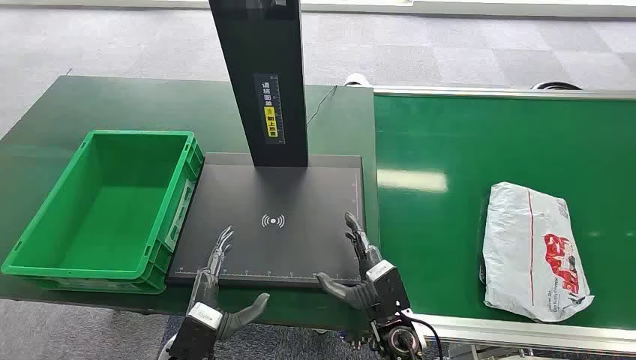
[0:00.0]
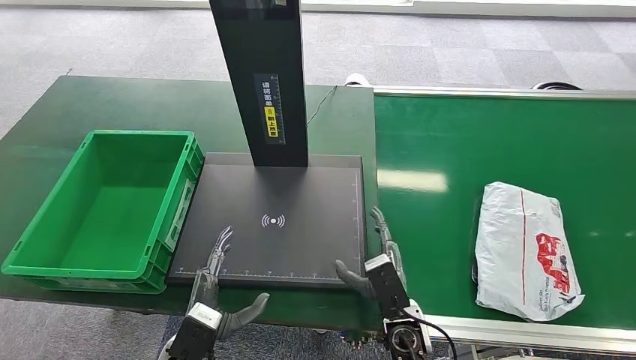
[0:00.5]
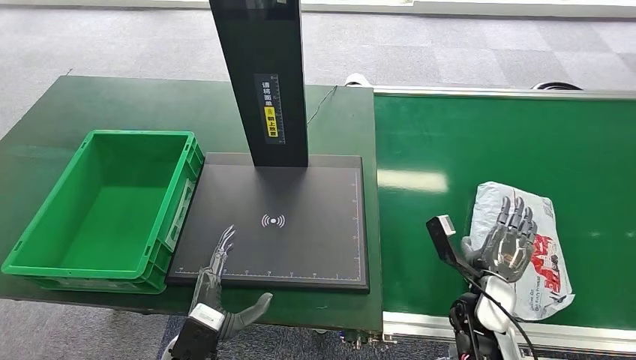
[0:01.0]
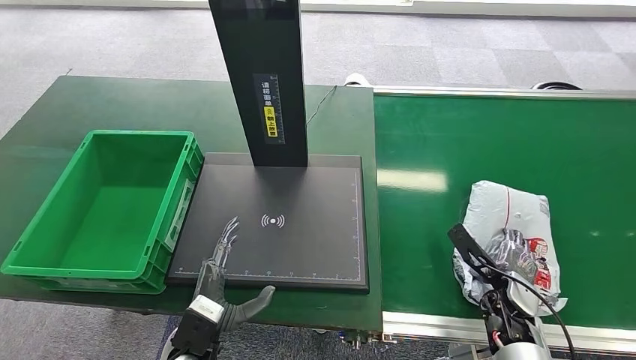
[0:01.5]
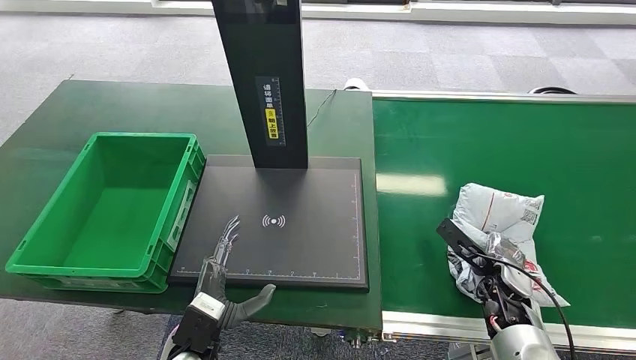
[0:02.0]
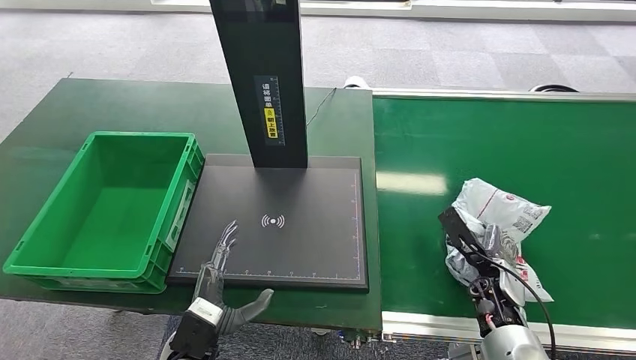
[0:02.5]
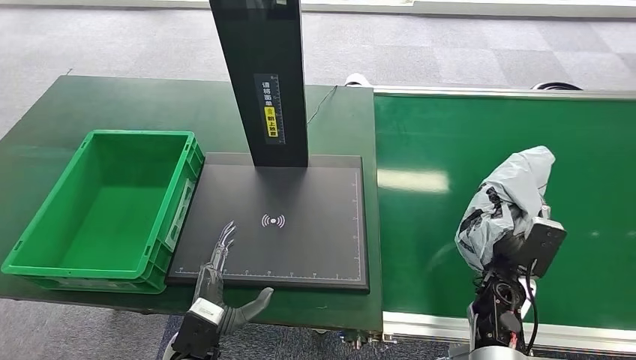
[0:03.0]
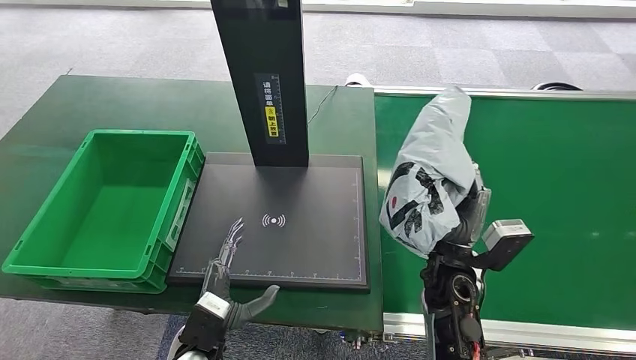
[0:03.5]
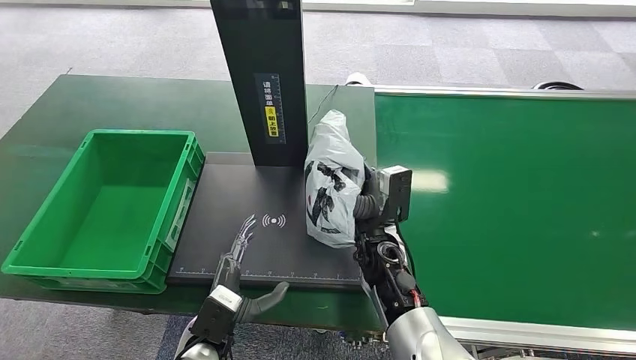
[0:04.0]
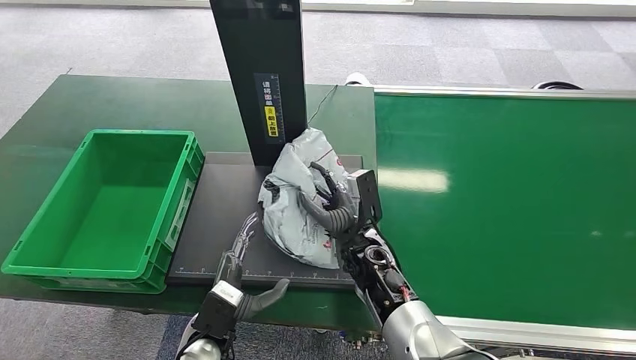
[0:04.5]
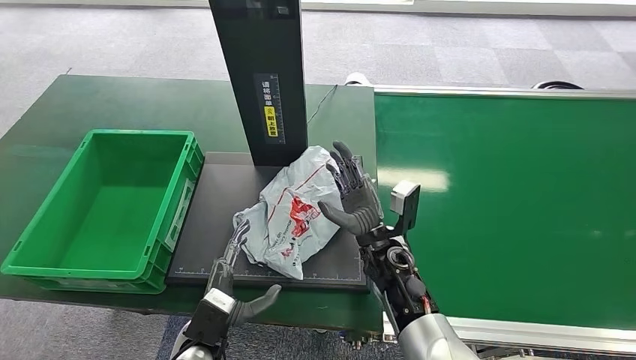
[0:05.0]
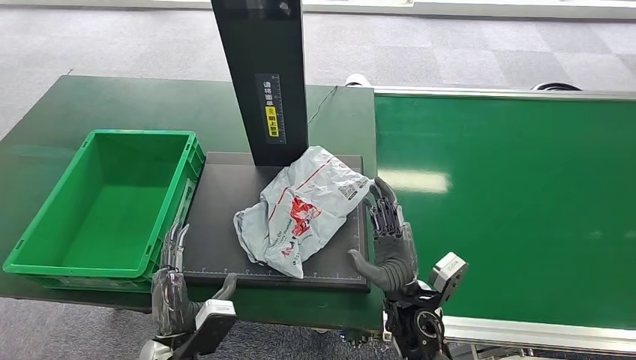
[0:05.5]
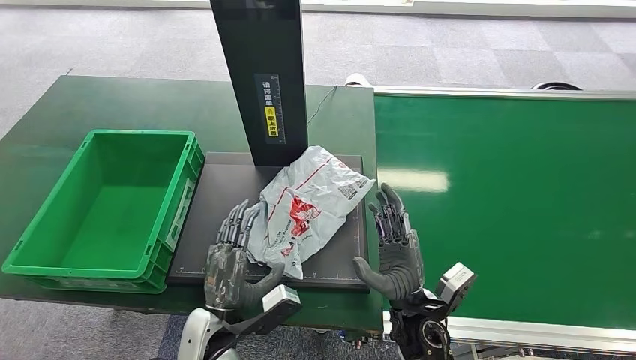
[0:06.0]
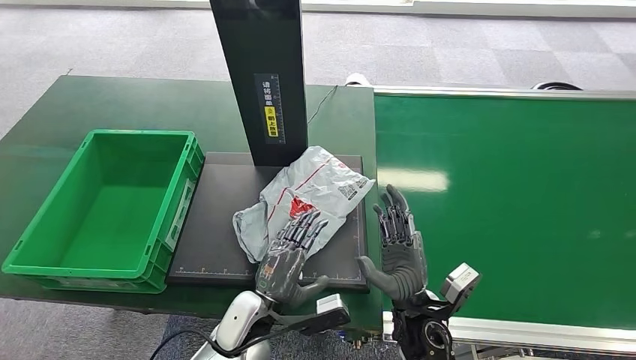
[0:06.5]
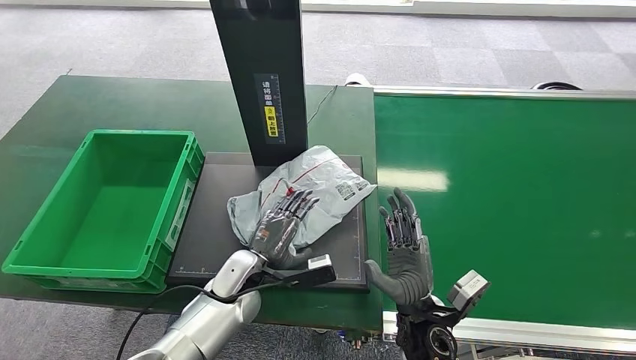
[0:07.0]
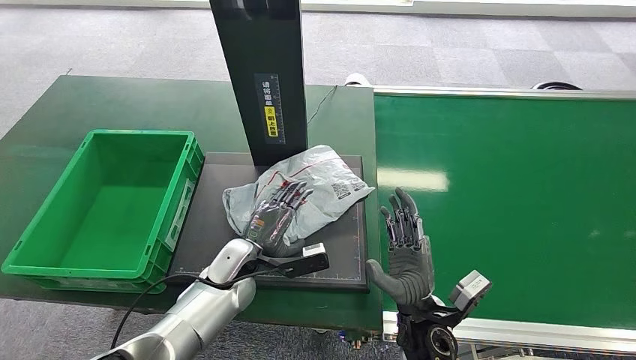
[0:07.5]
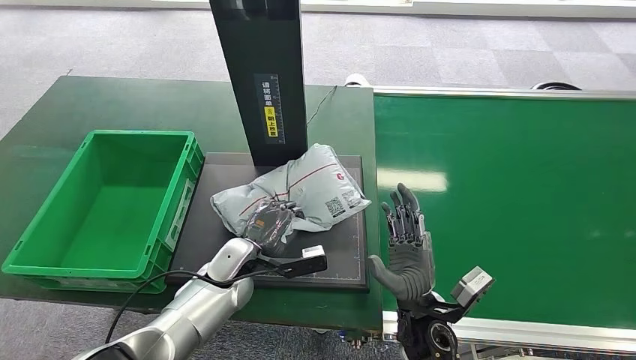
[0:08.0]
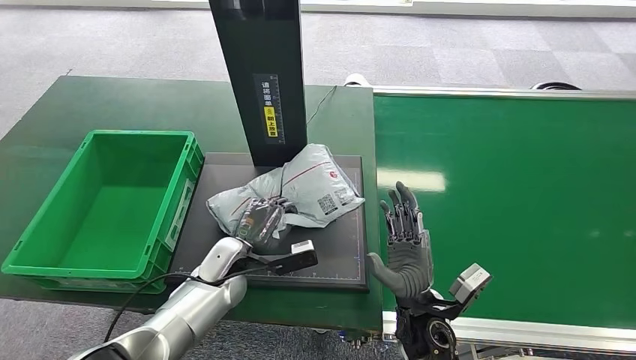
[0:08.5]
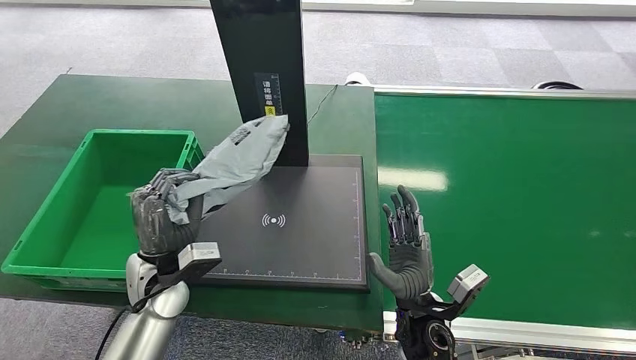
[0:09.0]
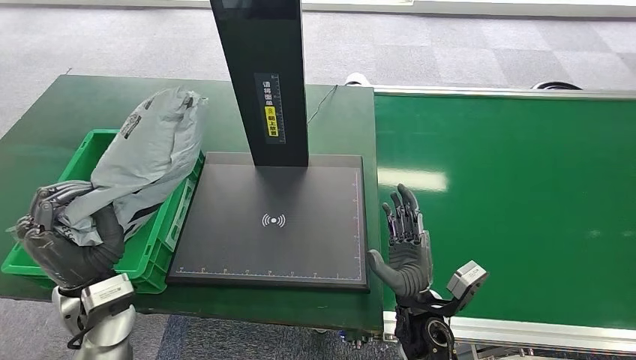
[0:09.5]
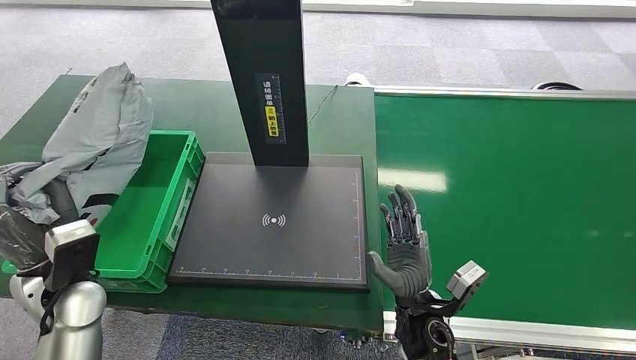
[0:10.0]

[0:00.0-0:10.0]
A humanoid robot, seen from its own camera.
Step, 0:00.0 to 0:03.0: Pick up the package from the conveyor belt.
Step, 0:03.5 to 0:05.5: Place the package onto the inbound machine.
Step, 0:06.0 to 0:09.0: Pick up the package from the inbound machine.
0:04.0 to 0:06.0: The right hand heads backward, covering some 10 cm.
0:06.0 to 0:08.0: The left hand shifts approximately 15 cm forward.
0:08.0 to 0:10.0: The left hand travels to the left, upward and backward by roughly 25 cm.

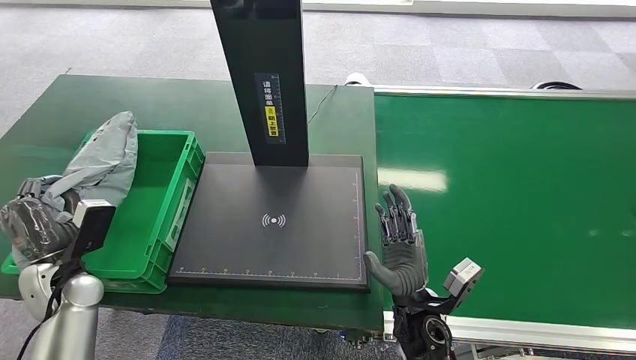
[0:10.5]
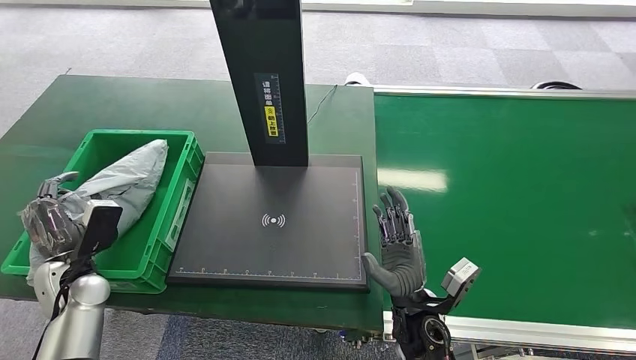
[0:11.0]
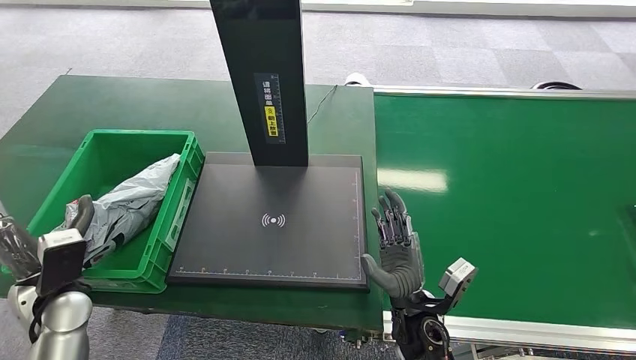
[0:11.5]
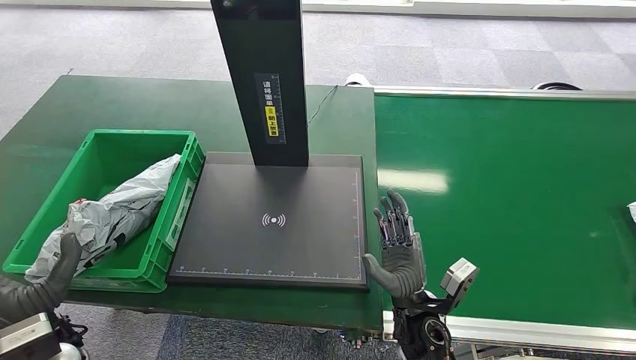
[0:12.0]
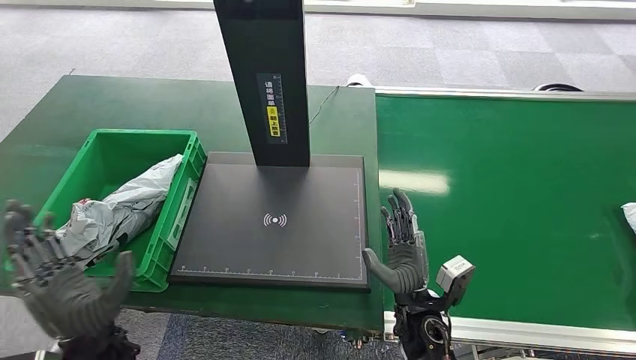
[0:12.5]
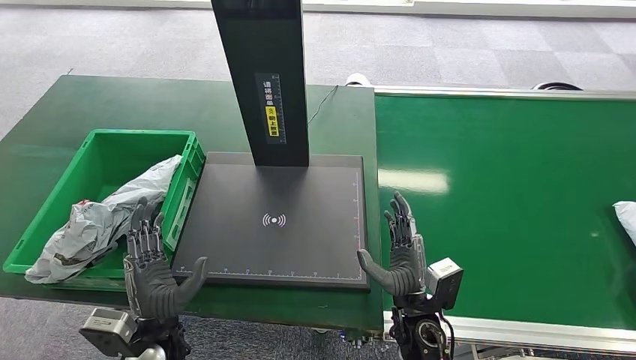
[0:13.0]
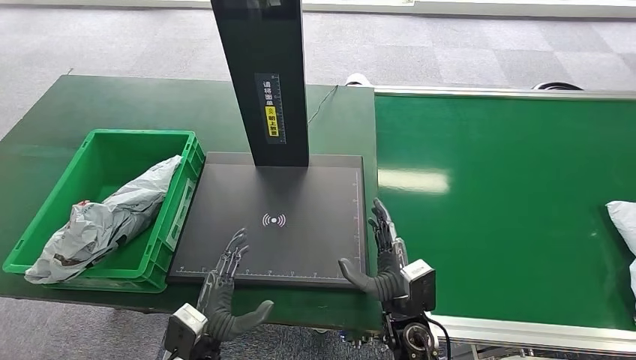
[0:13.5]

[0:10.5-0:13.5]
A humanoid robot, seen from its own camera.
Step, 0:10.5 to 0:13.5: Place the package into the parcel locker.
0:10.5 to 0:12.0: The left hand shifts some 10 cm backward and to the right.
0:12.0 to 0:13.5: The left hand goes roughly 20 cm to the right and downward.
